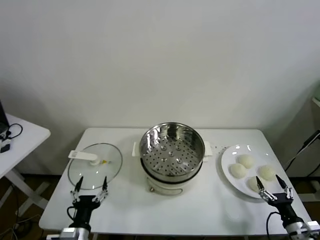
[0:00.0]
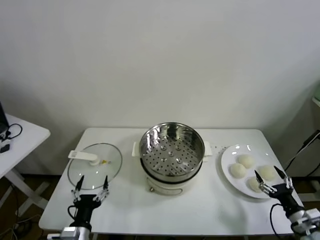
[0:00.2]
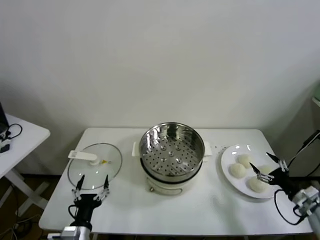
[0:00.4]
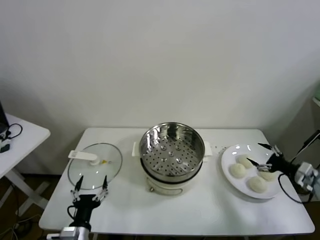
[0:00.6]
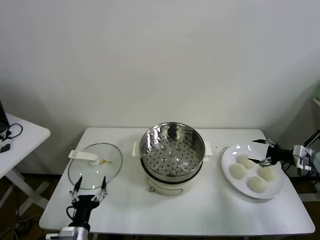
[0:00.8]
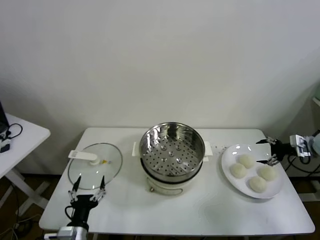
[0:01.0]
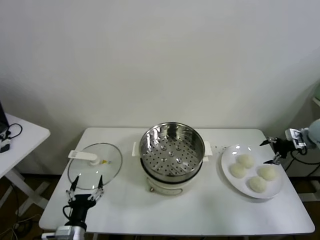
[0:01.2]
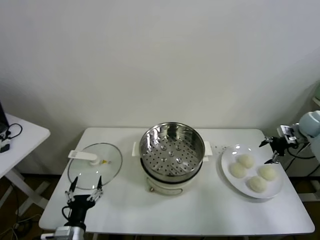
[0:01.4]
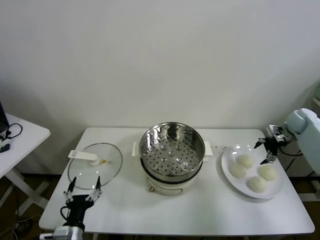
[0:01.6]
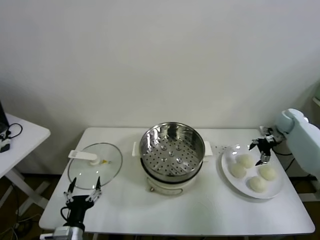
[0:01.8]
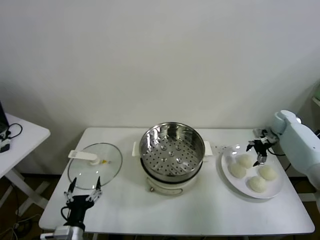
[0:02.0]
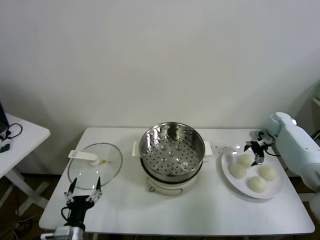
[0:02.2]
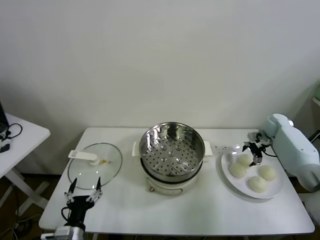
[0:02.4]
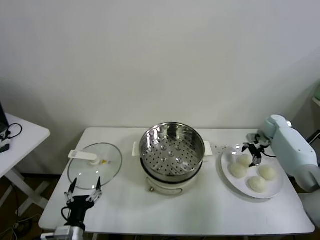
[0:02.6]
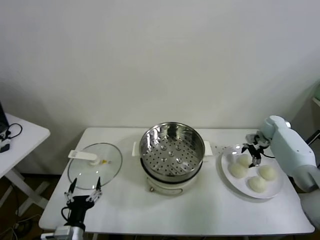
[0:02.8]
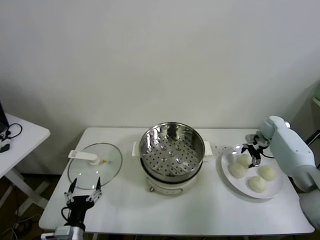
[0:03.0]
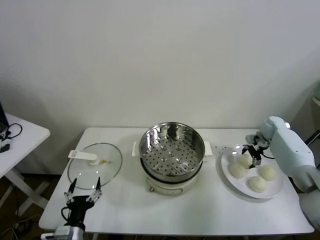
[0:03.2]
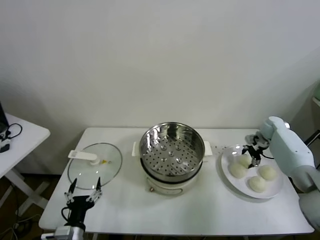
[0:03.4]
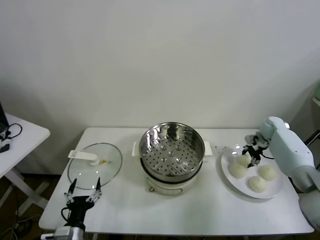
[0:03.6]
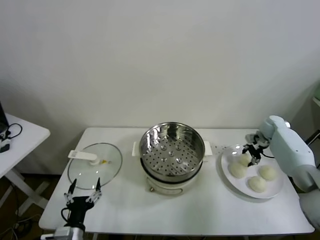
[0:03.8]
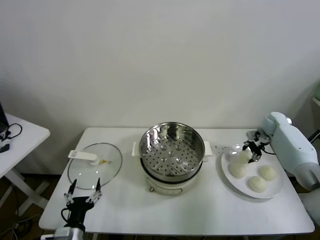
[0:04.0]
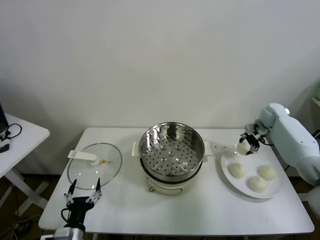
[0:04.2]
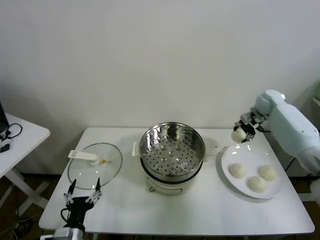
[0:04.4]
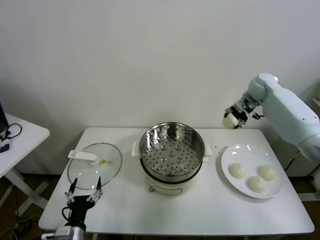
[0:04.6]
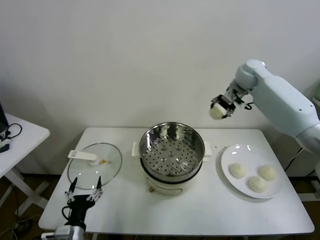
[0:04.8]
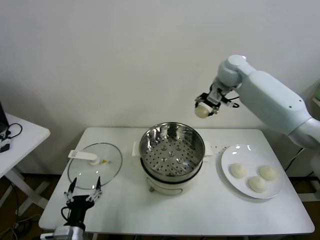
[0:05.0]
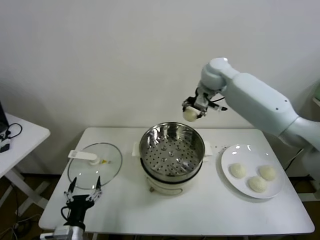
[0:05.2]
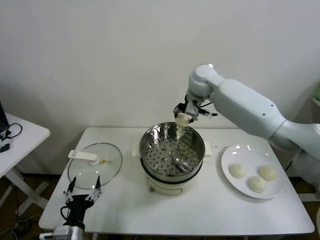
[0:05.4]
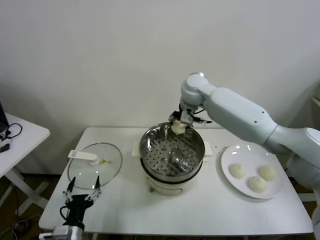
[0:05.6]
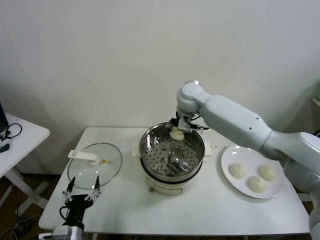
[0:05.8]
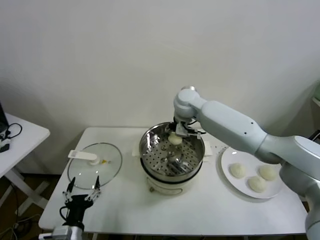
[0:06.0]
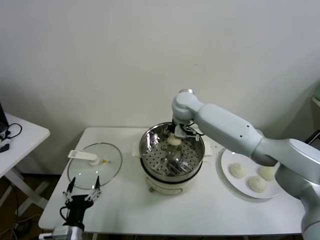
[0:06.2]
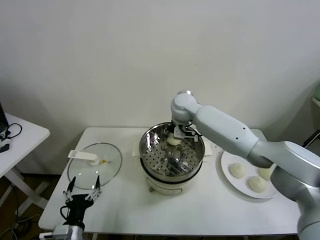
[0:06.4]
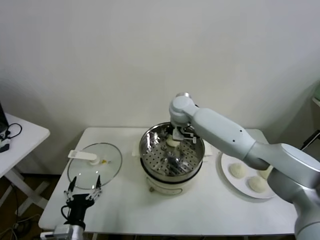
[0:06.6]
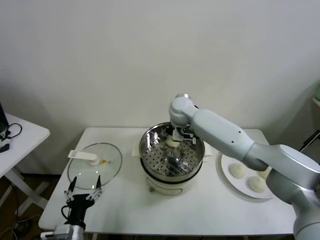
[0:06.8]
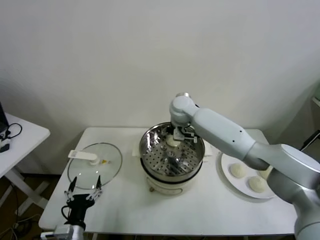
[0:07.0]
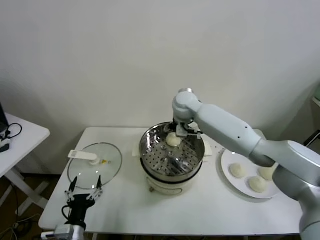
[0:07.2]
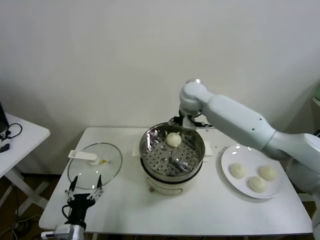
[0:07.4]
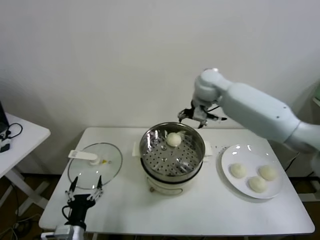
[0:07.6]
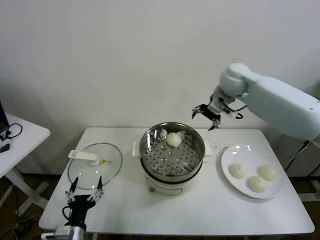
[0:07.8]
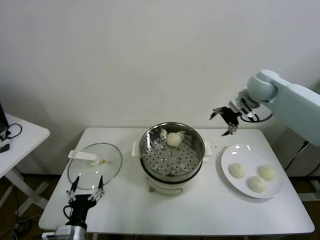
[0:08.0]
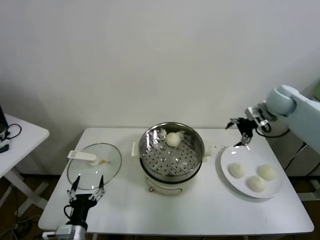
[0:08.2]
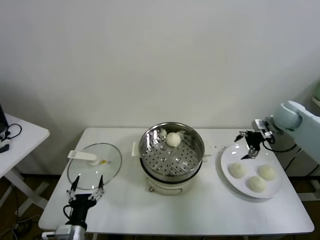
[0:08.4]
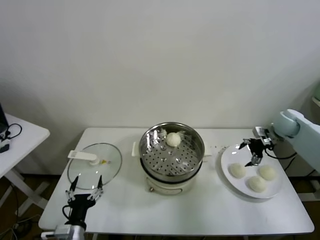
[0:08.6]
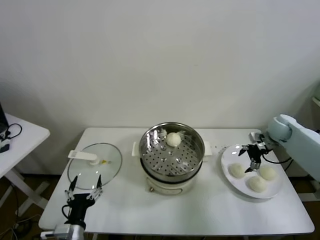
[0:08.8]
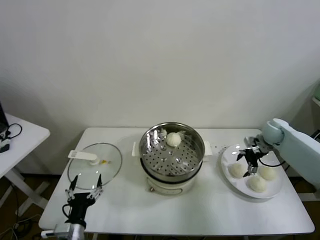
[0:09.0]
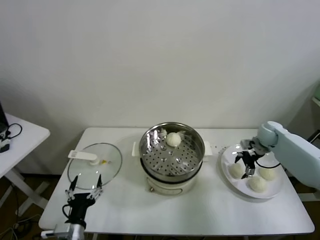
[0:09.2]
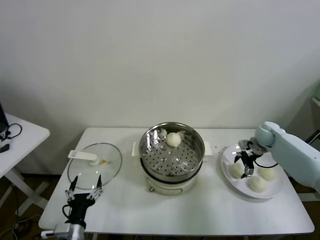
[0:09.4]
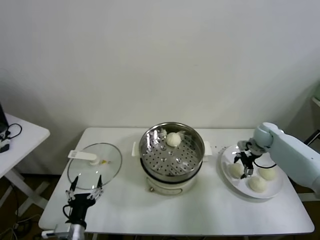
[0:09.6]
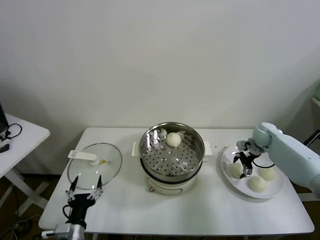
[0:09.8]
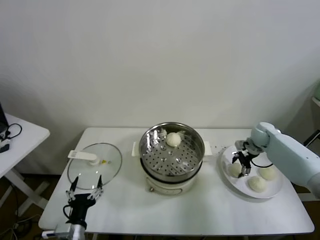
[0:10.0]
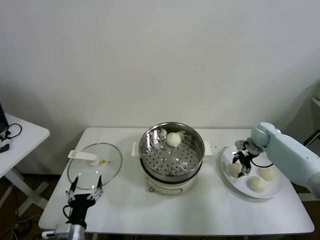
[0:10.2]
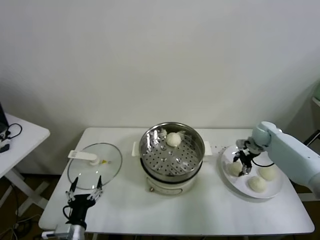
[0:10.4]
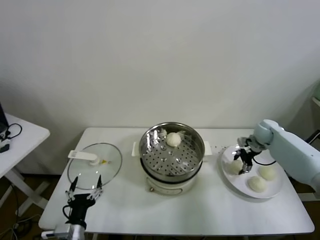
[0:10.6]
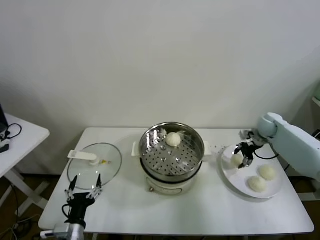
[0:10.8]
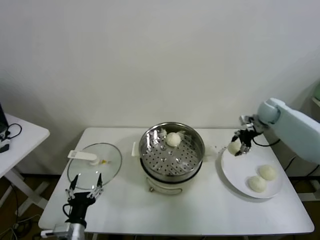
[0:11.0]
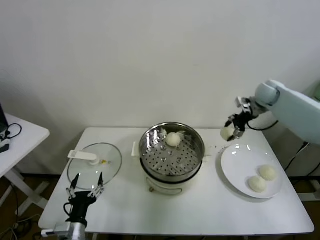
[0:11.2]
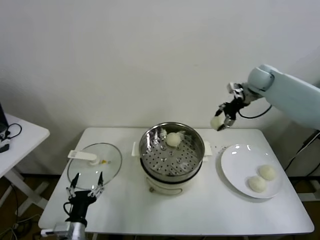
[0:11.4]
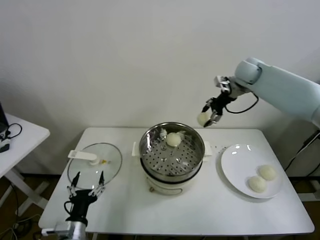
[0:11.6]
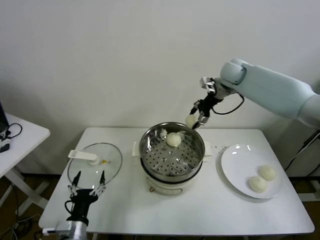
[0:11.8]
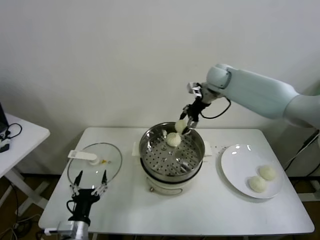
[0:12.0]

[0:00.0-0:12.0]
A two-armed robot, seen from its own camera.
Task of the whole recording: take steamed baozi put them in steamer.
Step, 0.0 to 3.4 s: Grasp the baozi in the plate with right gripper.
Step, 3.6 to 7.0 s: Place the baozi on the steamer with right gripper.
Step, 7.2 to 10.0 s: Grasp the baozi in the plate with right gripper.
1.6 to 3.0 s: The right gripper travels downward by approximately 5 cm.
3.0 to 4.4 s: The right gripper moves upward and to the left, approximately 15 cm, and closes its fingers.
4.4 to 6.0 s: The right gripper travels to the left by roughly 30 cm.
6.0 to 7.6 s: The right gripper travels to the right and upward by about 15 cm, and opens its fingers.
7.6 to 9.0 s: The right gripper shifts roughly 35 cm to the right and downward.
9.0 to 10.4 s: The right gripper closes its fingers.
10.4 to 12.0 s: The right gripper heads to the left and upward, covering about 30 cm.

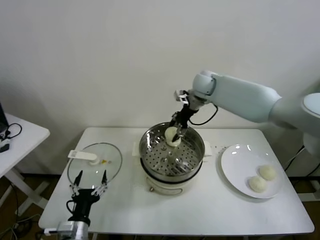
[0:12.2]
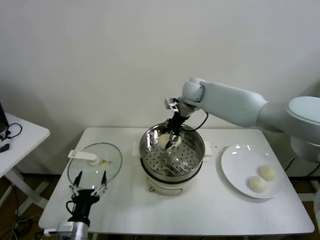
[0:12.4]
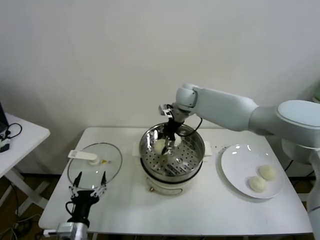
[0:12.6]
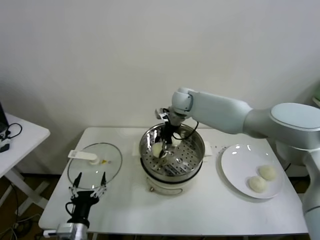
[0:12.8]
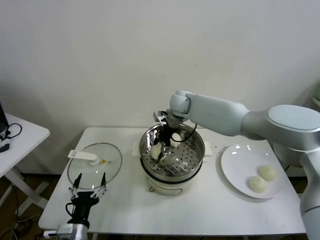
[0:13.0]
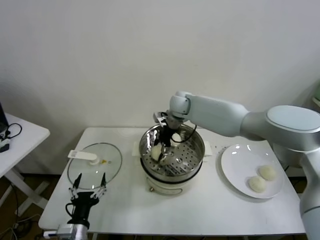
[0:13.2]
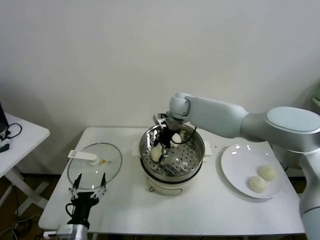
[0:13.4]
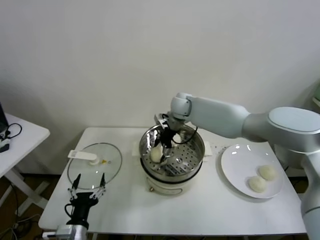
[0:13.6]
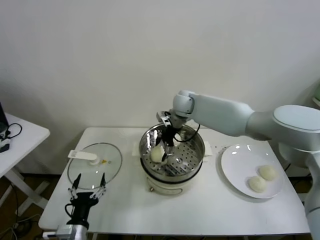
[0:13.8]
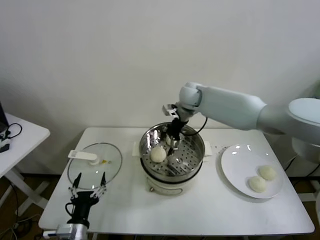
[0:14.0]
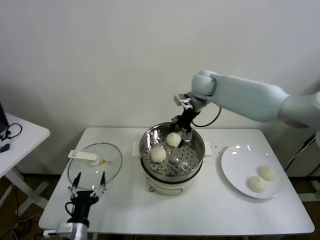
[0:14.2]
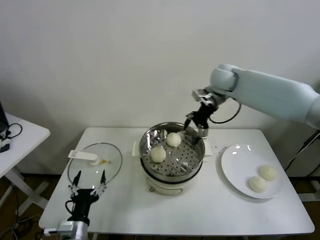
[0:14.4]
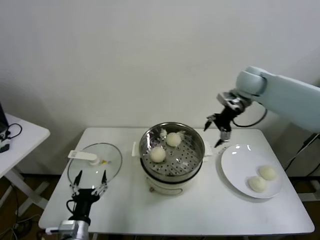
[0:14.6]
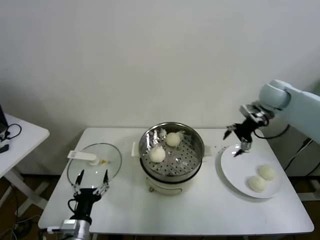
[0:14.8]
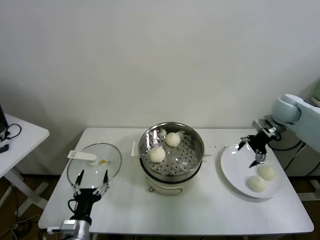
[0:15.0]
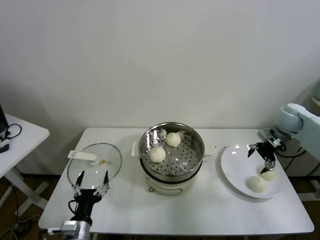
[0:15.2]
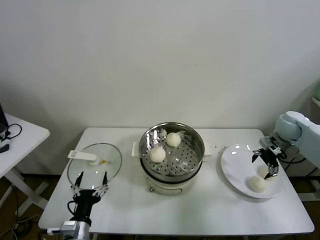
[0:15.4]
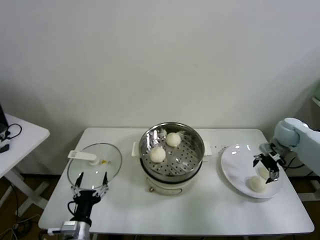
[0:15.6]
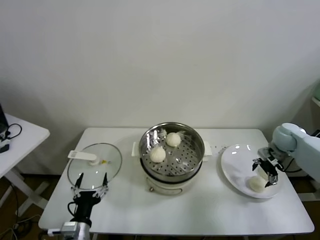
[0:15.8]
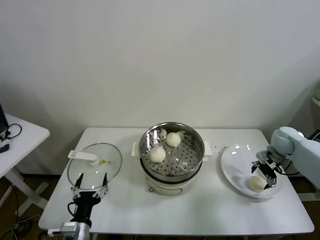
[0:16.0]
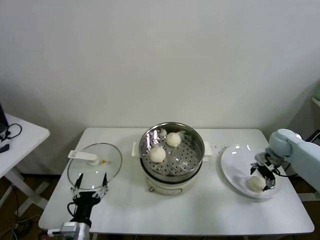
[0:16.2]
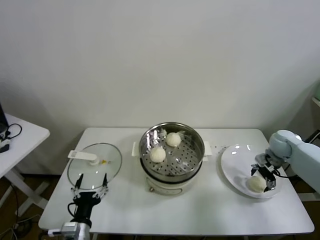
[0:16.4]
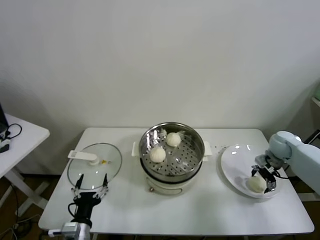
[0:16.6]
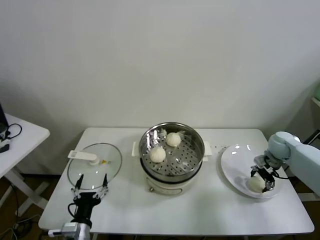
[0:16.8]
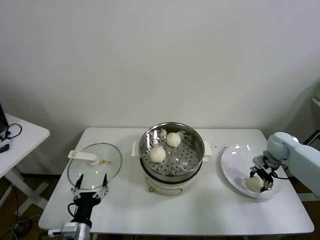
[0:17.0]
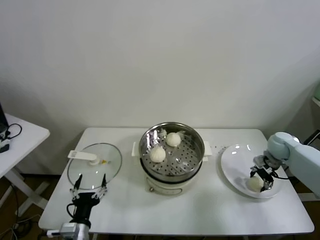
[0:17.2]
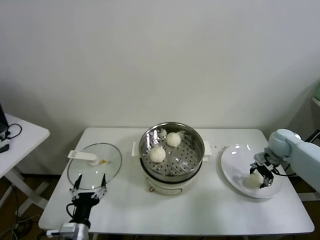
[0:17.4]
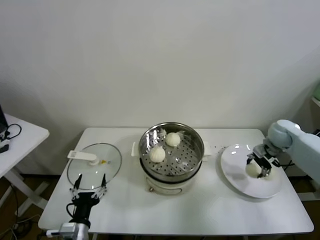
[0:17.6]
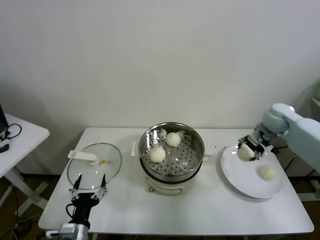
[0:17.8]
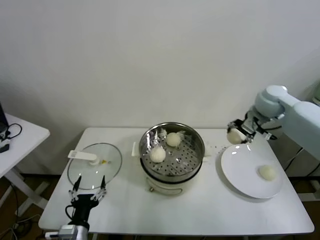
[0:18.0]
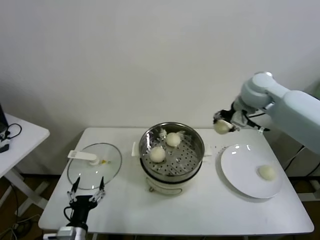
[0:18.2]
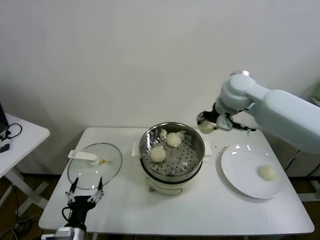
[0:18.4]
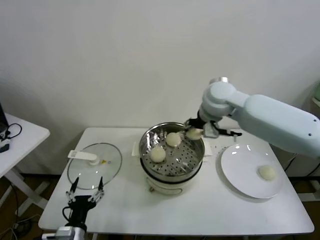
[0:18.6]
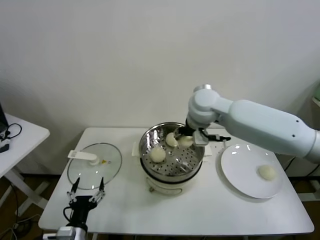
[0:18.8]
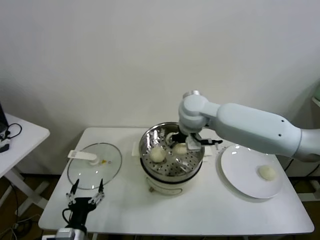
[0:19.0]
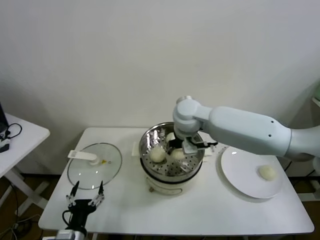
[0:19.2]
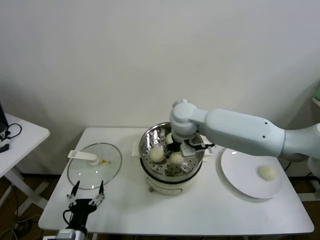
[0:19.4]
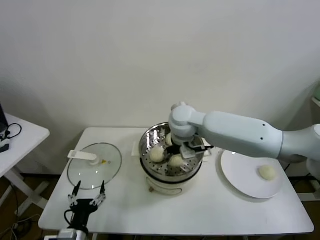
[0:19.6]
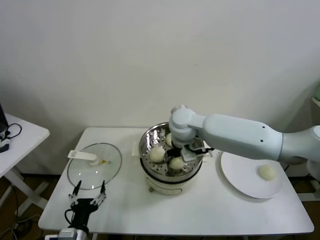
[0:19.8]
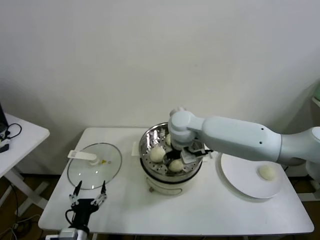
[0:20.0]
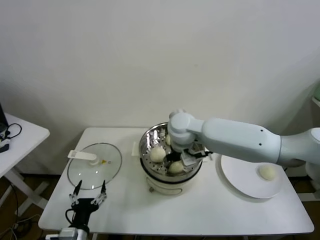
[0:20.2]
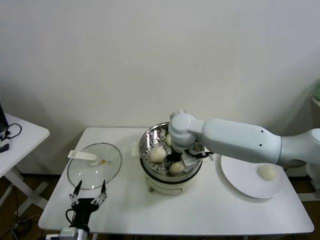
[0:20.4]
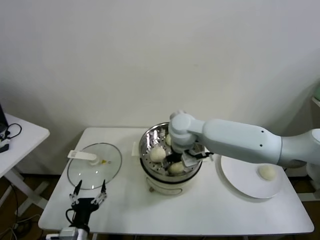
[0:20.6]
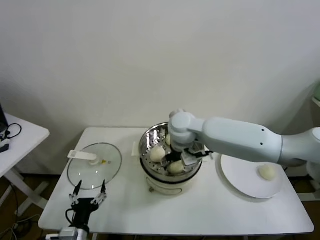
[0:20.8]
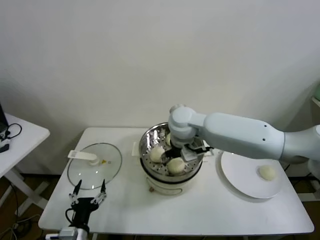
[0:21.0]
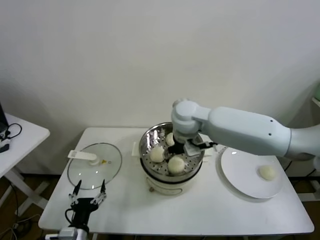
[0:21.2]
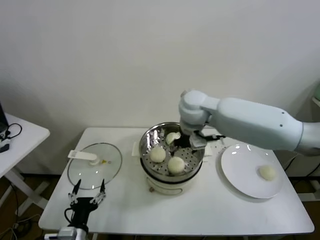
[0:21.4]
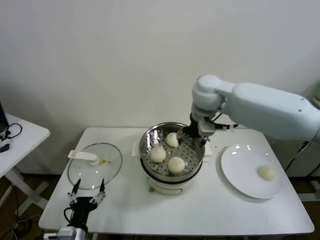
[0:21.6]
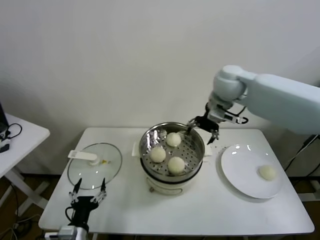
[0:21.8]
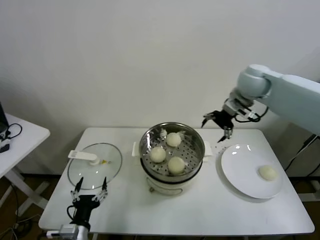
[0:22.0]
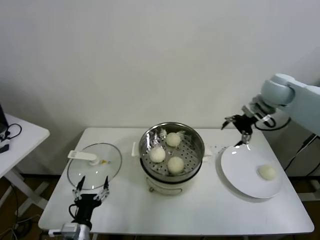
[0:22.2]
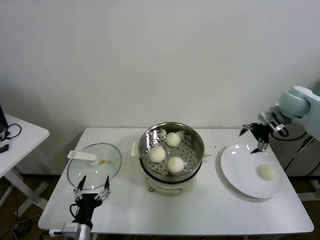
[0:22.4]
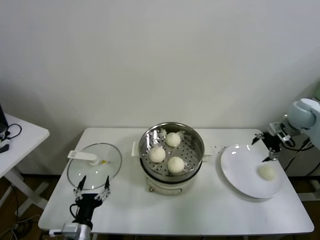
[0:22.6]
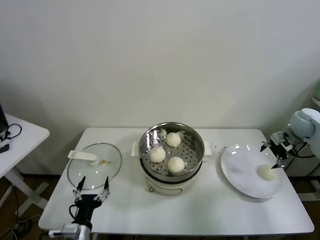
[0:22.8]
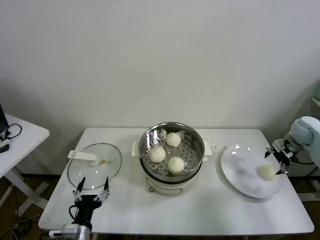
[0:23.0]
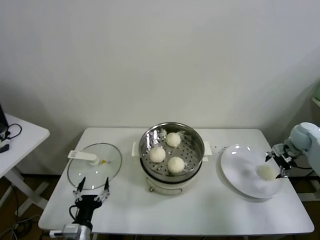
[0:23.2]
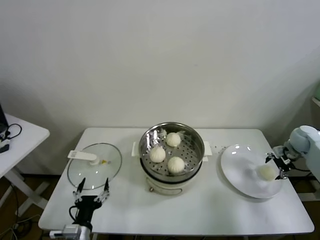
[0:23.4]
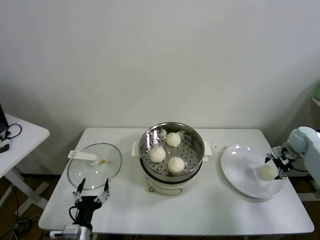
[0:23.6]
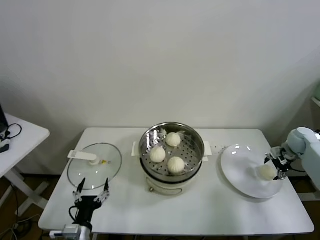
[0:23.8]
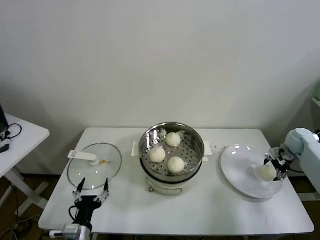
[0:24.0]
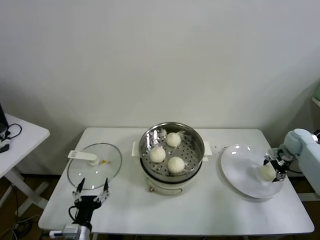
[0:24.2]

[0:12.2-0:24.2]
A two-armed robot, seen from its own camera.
Task of the whole recording: take steamed baozi put them in steamer.
Step, 13.8 to 16.8 s: Grasp the baozi in the plate with right gripper.
Step, 17.0 to 20.8 s: Place the baozi on the steamer with right gripper.
12.2 to 13.8 s: The right gripper travels to the left and downward by about 10 cm, and opens up.
13.8 to 15.2 s: The right gripper is displaced to the right by some 35 cm.
15.2 to 16.6 s: The right gripper is displaced downward by about 10 cm.
16.6 to 18.2 s: The right gripper shifts approximately 30 cm upward and to the left, and closes its fingers.
18.2 to 19.8 s: The right gripper heads to the left and downward, covering roughly 25 cm.
19.8 to 21.2 s: The right gripper opens.
21.2 to 22.6 s: The right gripper travels to the right by some 40 cm.
22.6 to 24.2 s: The right gripper shifts about 15 cm downward and to the right.
